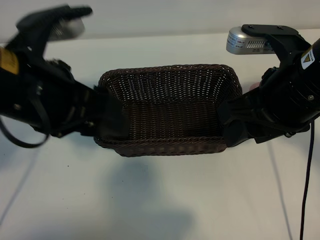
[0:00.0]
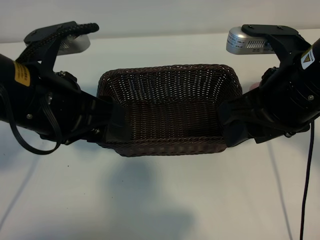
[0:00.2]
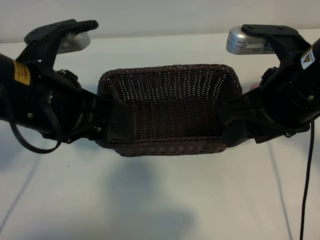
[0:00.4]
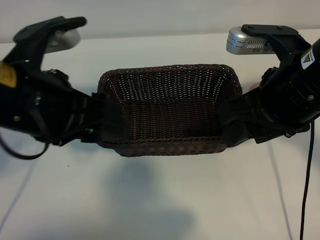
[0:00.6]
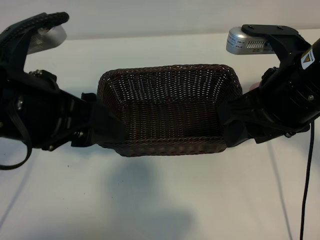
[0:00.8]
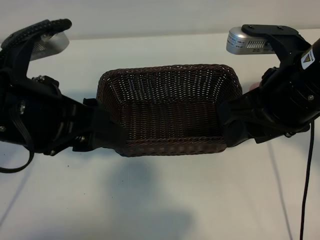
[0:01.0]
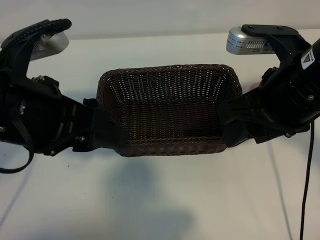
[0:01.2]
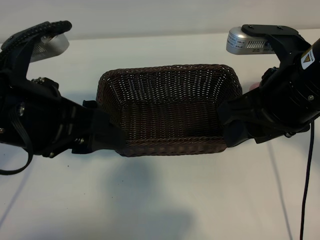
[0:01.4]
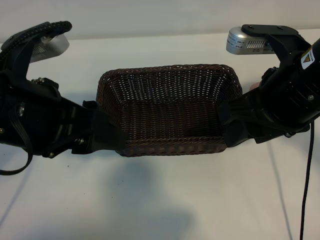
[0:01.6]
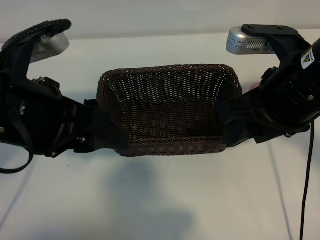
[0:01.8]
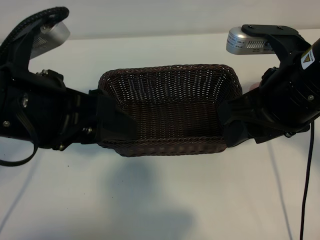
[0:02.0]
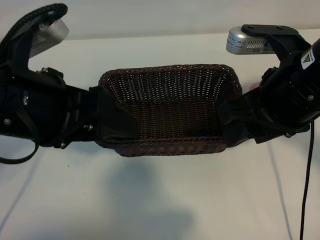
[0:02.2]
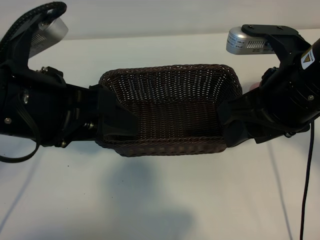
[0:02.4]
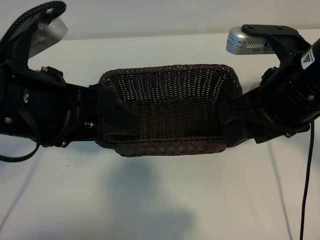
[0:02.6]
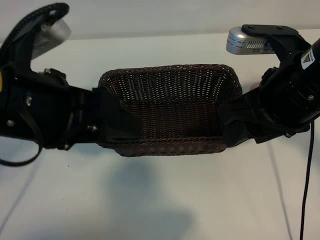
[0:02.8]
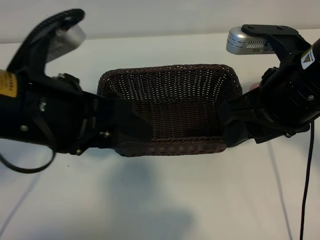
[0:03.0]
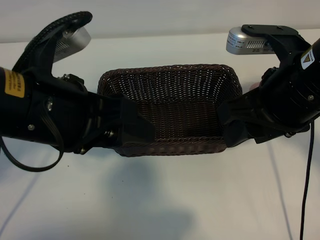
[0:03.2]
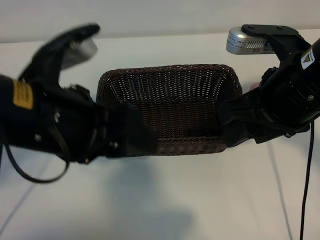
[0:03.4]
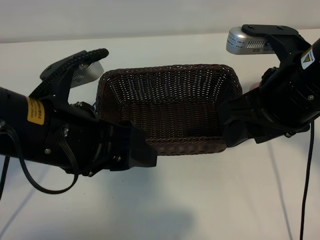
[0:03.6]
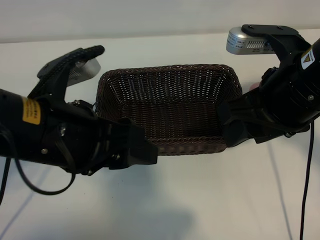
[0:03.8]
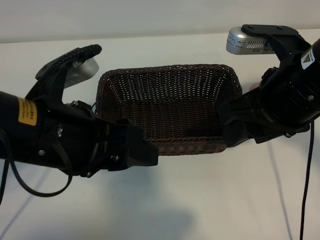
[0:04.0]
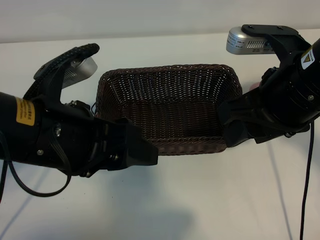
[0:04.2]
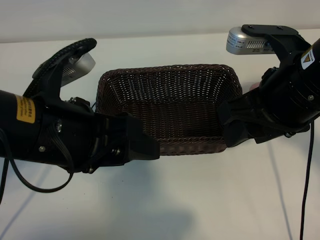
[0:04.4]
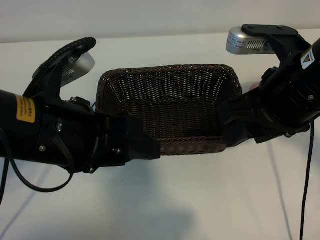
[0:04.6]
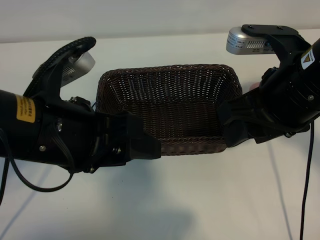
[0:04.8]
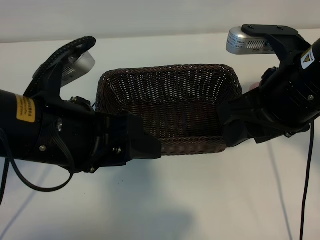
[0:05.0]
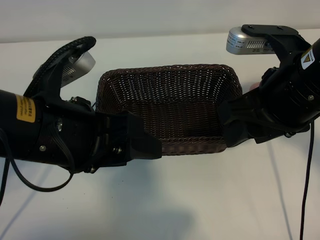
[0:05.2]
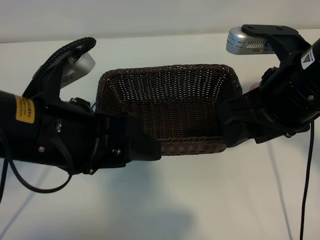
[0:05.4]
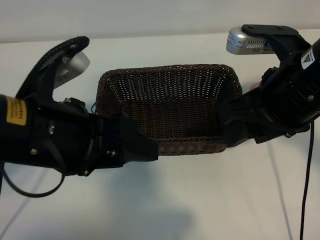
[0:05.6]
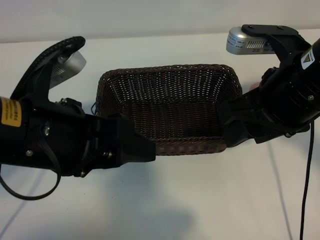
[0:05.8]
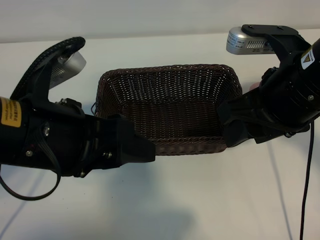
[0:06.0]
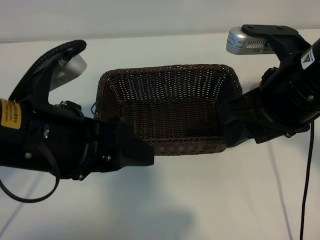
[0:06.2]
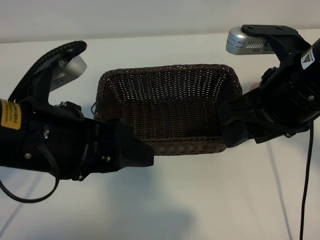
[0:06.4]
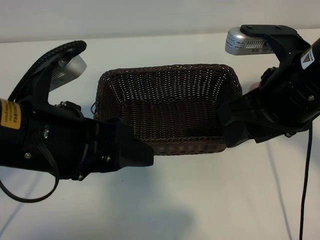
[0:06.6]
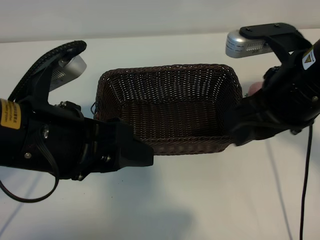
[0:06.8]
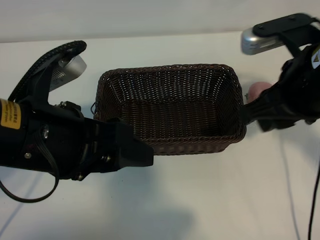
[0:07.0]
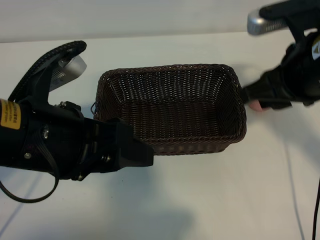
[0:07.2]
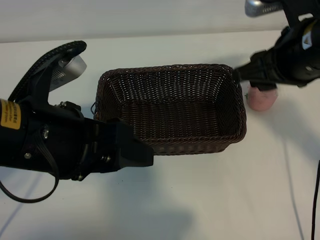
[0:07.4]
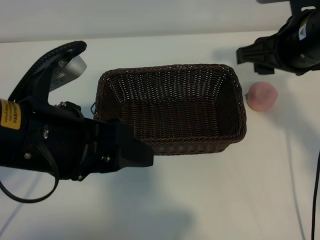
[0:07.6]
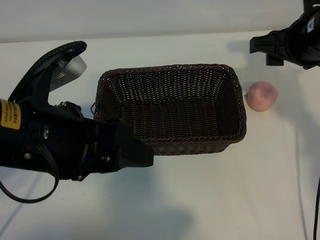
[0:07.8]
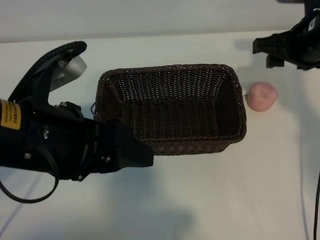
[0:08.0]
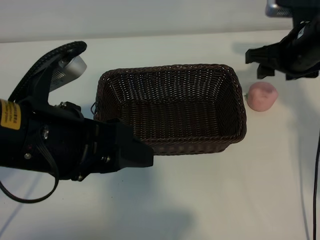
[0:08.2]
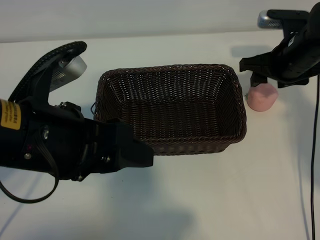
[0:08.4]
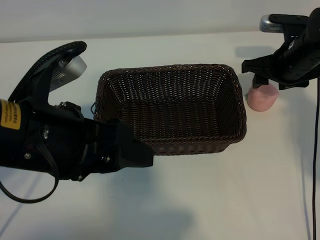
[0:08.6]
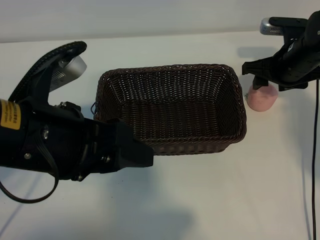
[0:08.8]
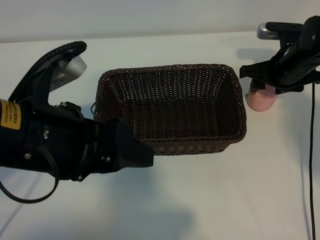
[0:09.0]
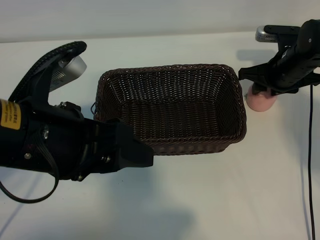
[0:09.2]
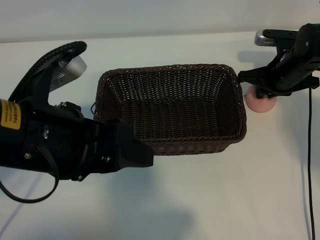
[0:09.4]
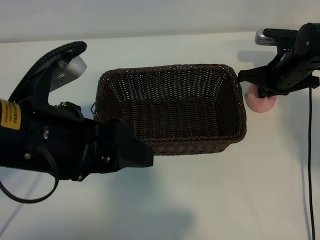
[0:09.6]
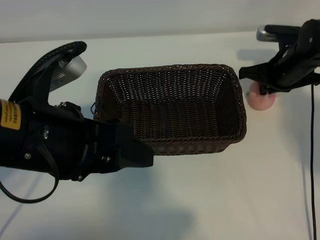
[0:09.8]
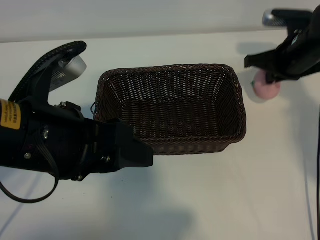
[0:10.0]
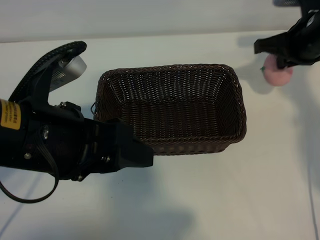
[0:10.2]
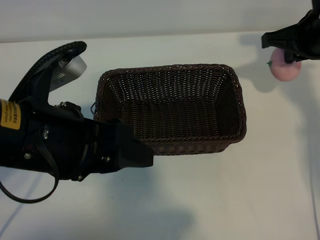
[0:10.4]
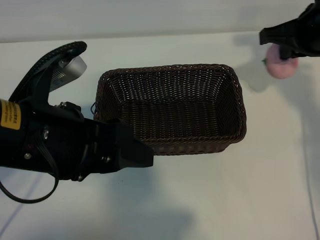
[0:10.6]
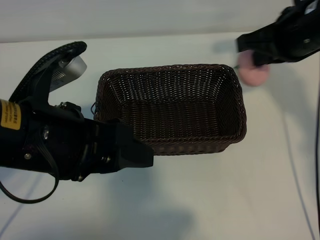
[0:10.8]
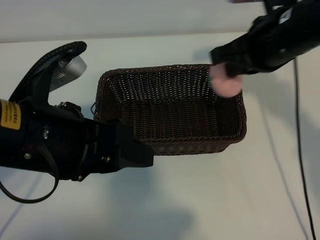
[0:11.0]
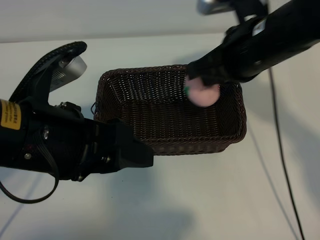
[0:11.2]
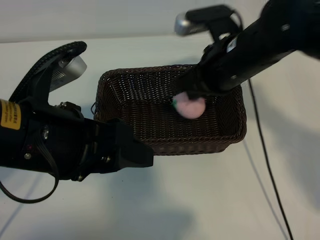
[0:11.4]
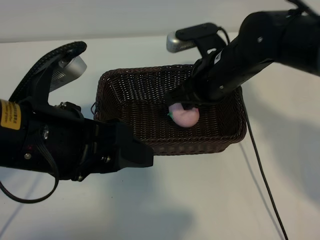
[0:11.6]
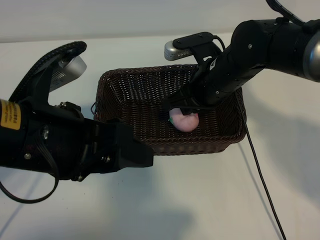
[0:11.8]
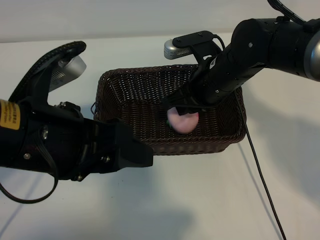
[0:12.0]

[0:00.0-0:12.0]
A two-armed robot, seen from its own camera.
Task of the whole recording: pick up the peach and put it into the basket.
Step, 0:00.0 to 0:09.6: Grasp the peach with right gripper.
